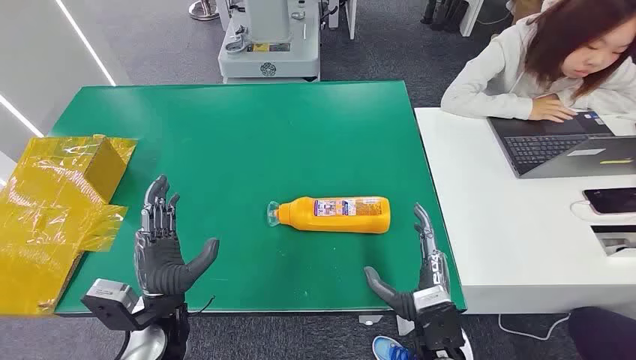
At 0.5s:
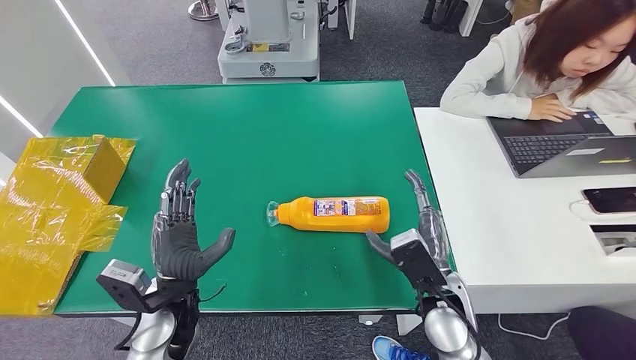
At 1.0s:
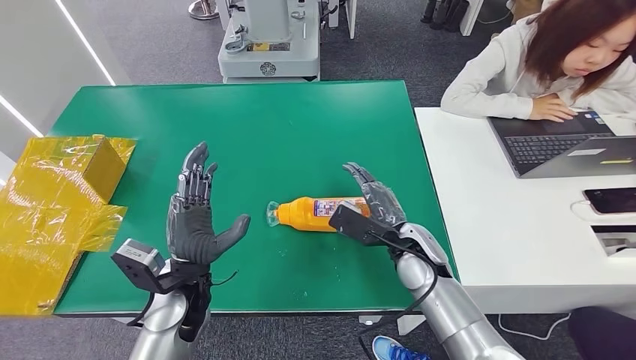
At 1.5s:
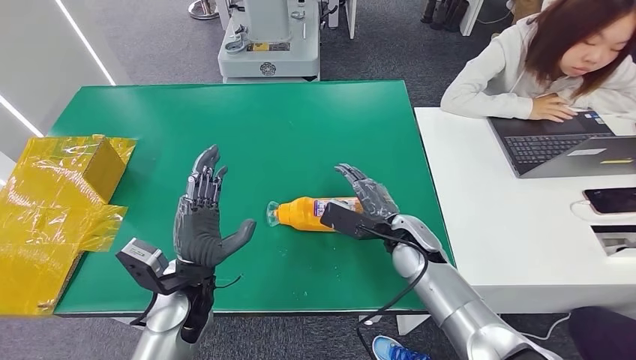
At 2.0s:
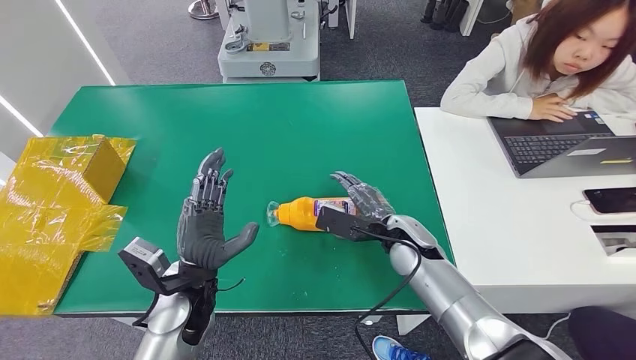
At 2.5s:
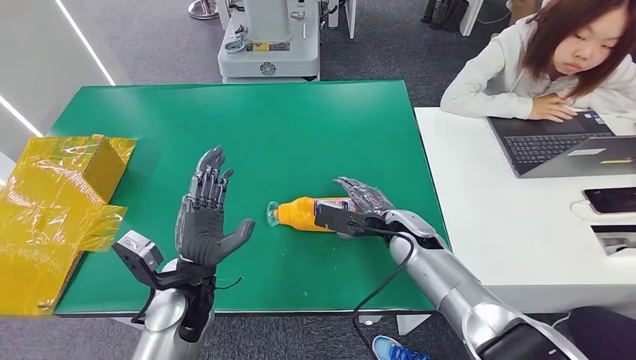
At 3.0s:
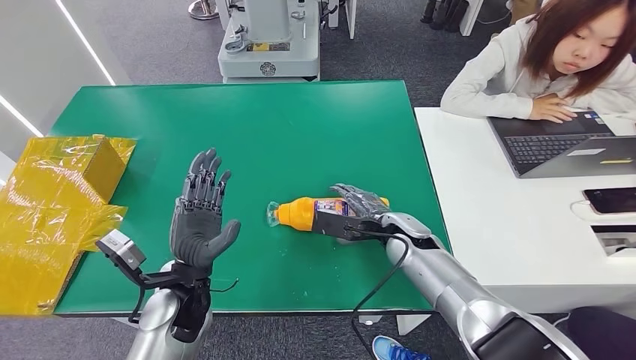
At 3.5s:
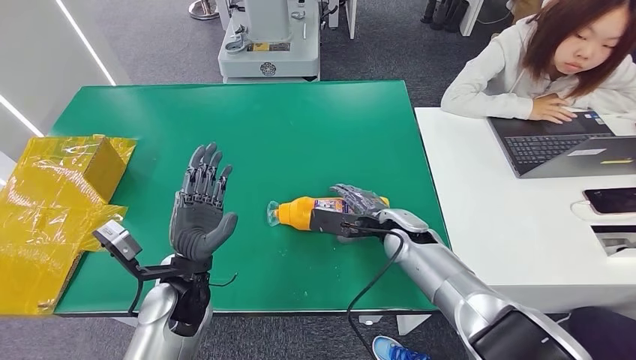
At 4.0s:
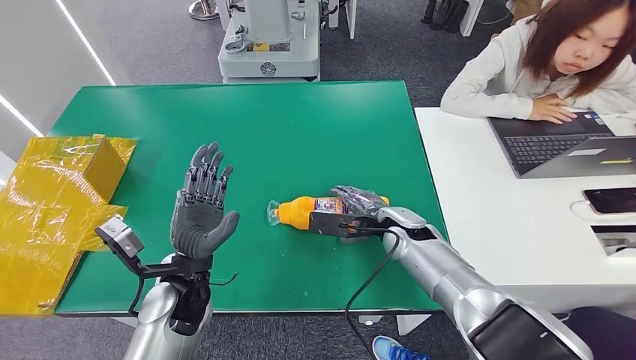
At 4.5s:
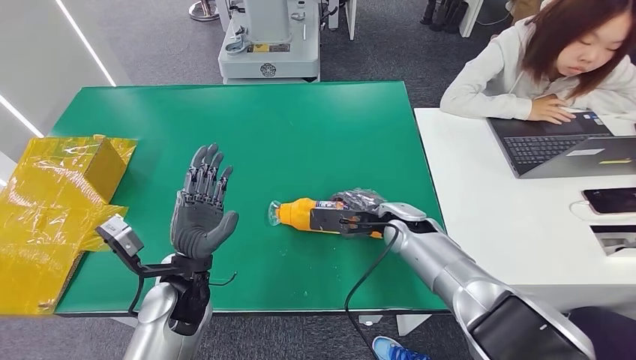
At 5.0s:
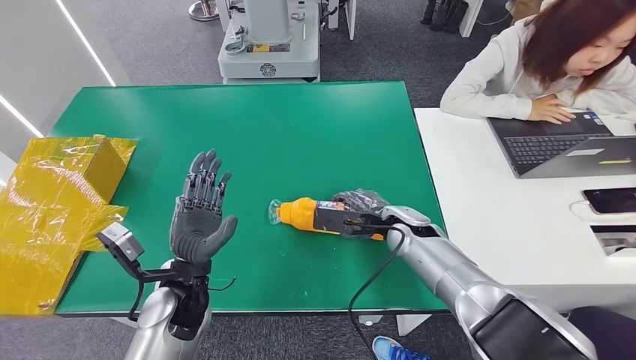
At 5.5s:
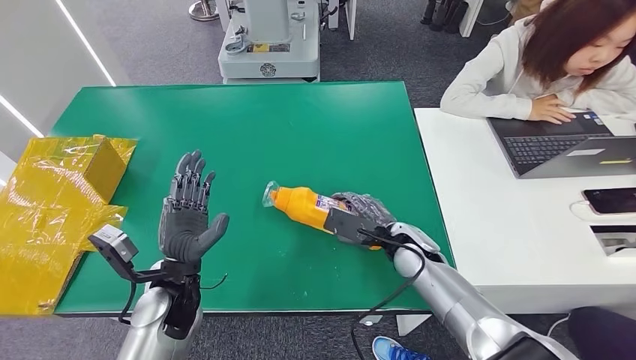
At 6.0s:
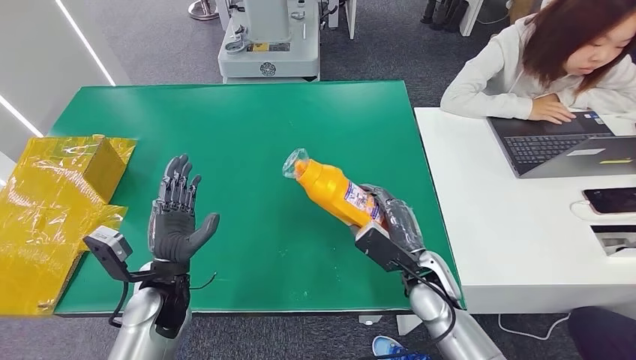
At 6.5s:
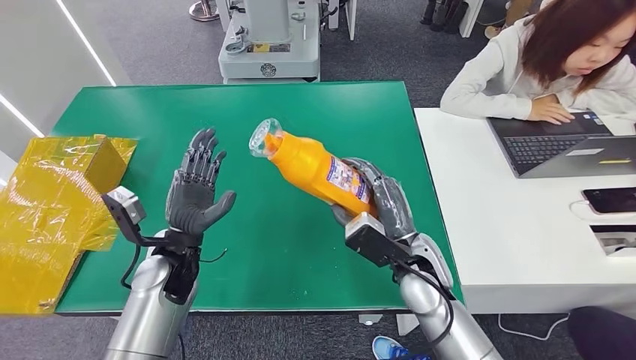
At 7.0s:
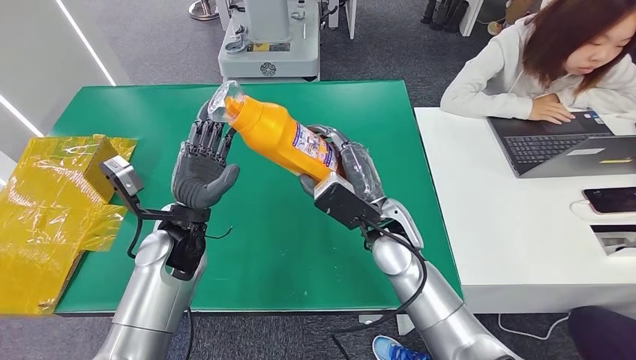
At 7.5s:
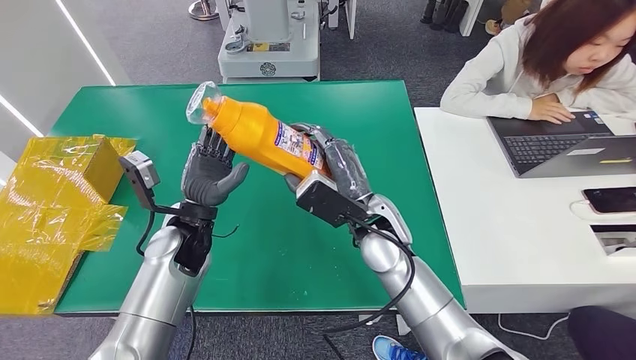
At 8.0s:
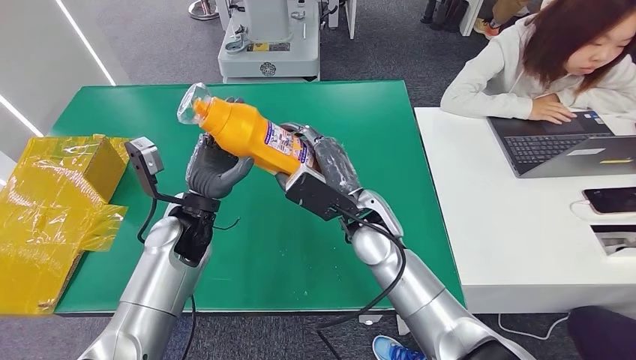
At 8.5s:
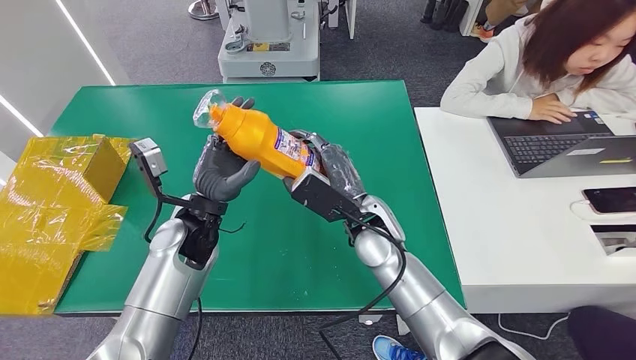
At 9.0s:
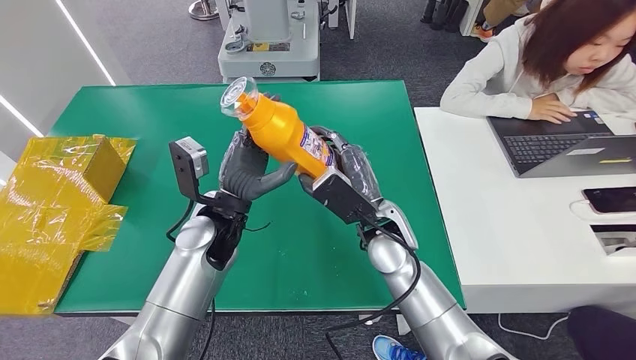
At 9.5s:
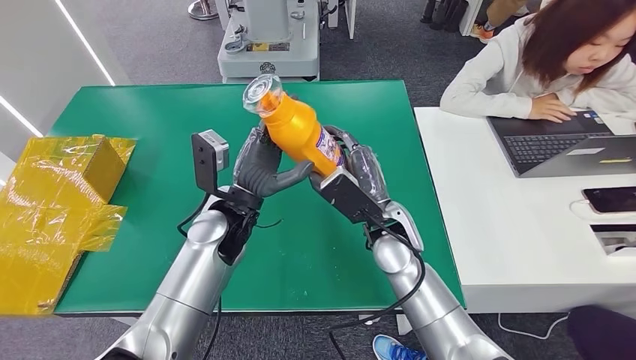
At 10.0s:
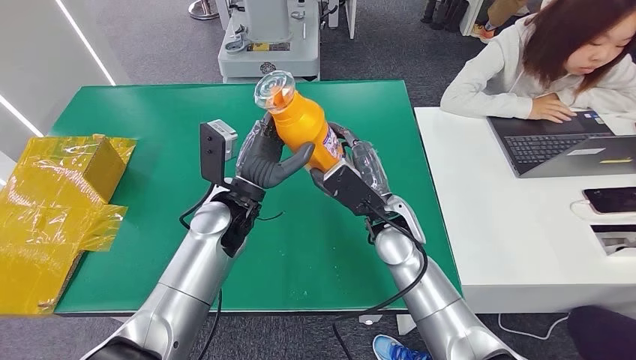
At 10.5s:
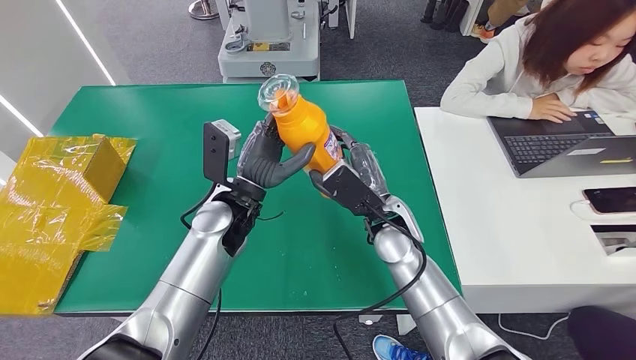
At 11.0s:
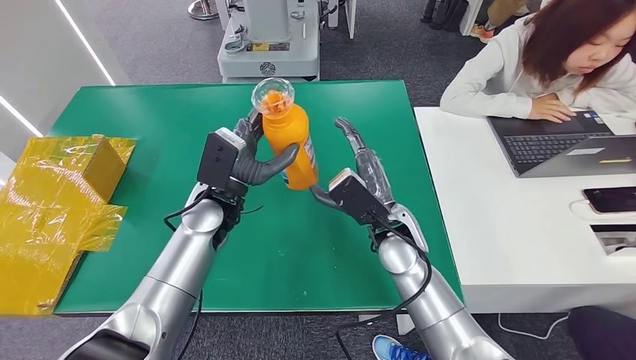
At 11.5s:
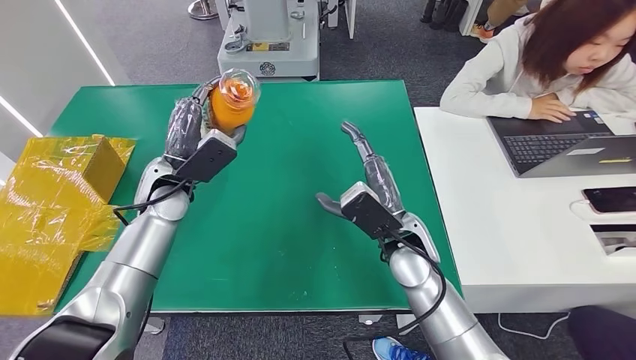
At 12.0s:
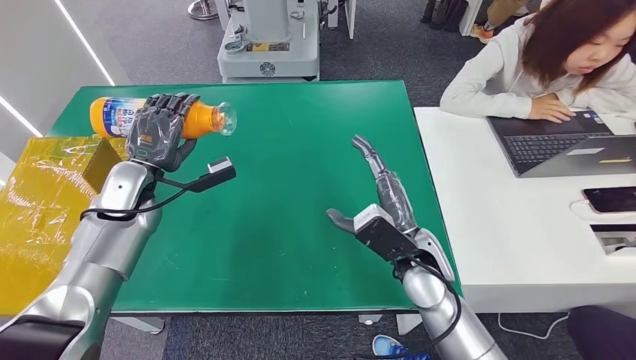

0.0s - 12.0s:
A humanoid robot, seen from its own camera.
Step, 0.0s - 6.0s: Pick up the bottle from the table.
4.0s - 6.0s: The right hand moves backward, approximately 10 cm. Meanwhile the left hand ends up some 5 cm from where it was.
6.0s - 8.0s: The left hand shifts approximately 10 cm forward and upward. The right hand heads upward, to the left and forward, covering about 15 cm.
8.0s - 10.0s: The left hand shifts about 10 cm to the right.

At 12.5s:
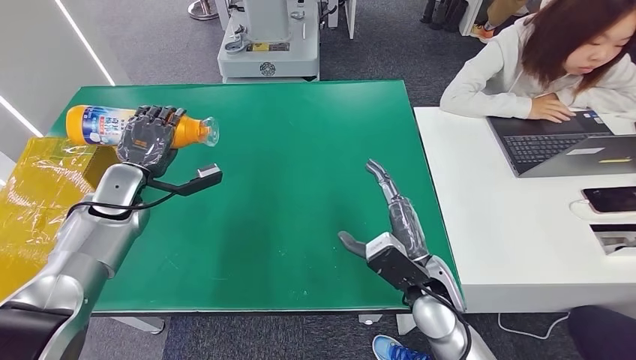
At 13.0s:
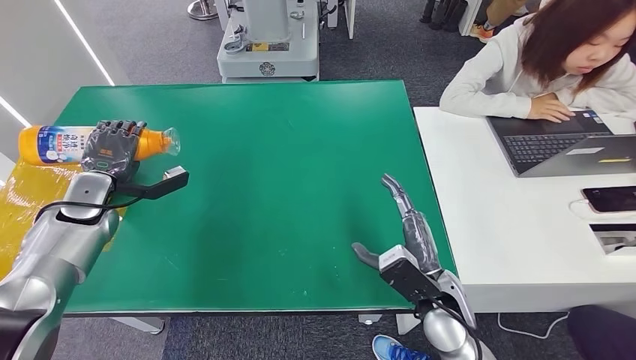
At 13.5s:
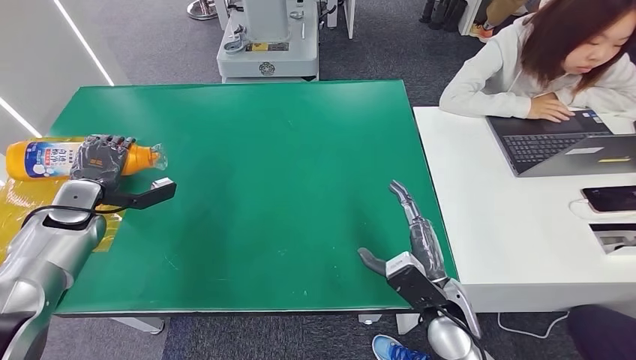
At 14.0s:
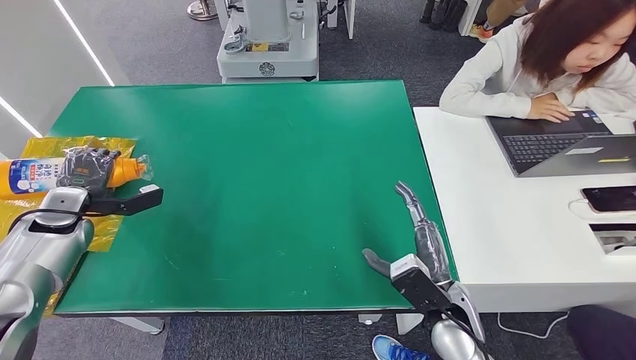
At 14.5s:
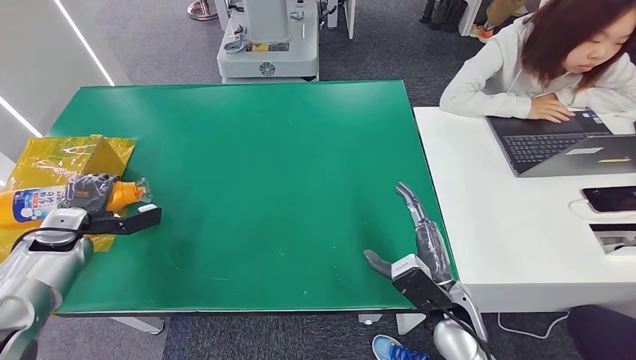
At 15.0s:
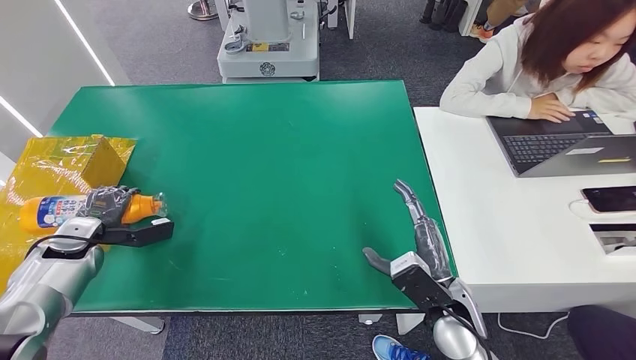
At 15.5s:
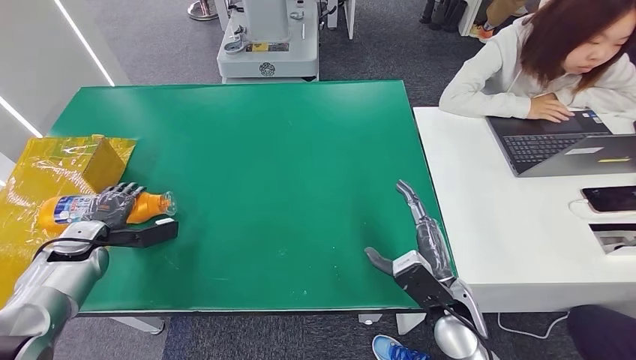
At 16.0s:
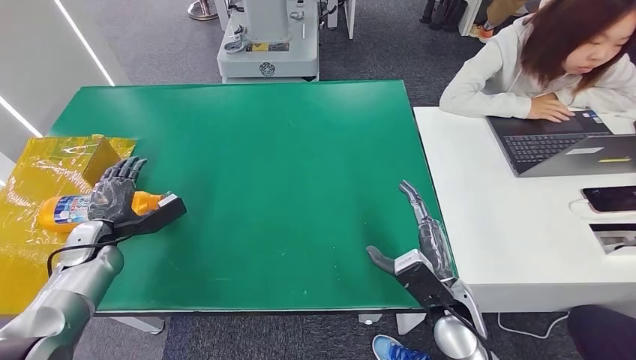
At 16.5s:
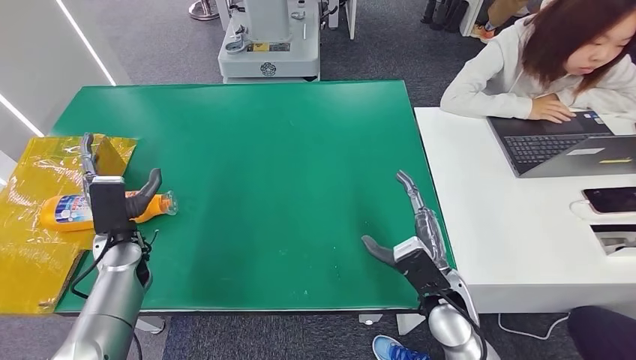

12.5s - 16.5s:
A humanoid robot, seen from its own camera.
Step, 12.5s - 16.5s: Turn the bottle to the front side.
12.5s - 14.5s: The left hand heads to the left and downward, covering about 15 cm. Meanwhile the right hand changes place by about 5 cm.
14.5s - 16.5s: The left hand heads to the right, covering roughly 15 cm.
